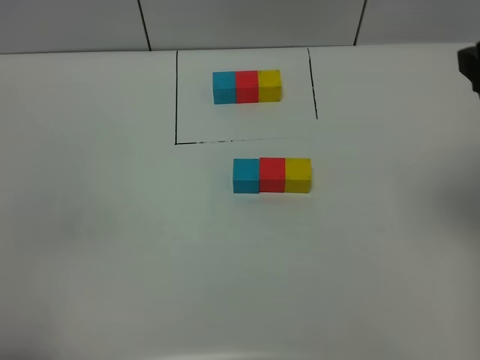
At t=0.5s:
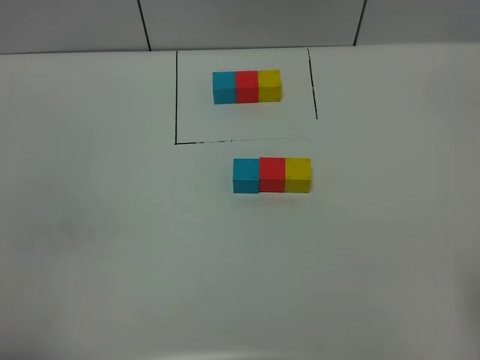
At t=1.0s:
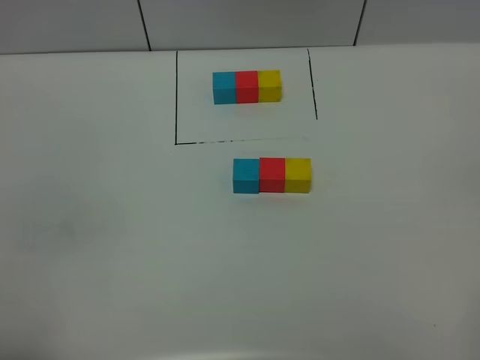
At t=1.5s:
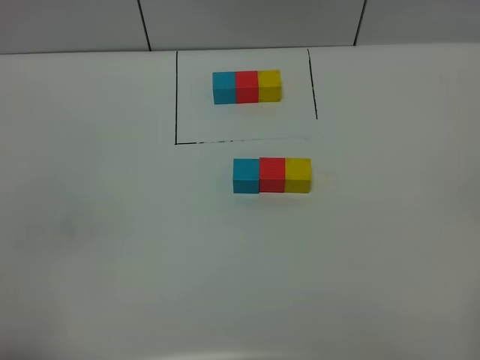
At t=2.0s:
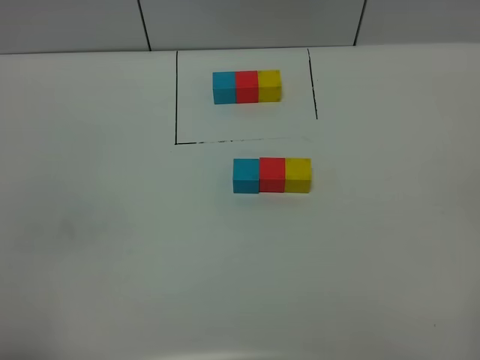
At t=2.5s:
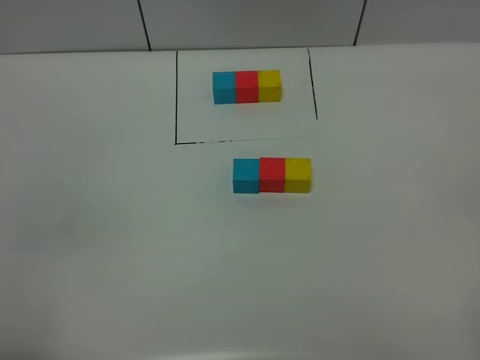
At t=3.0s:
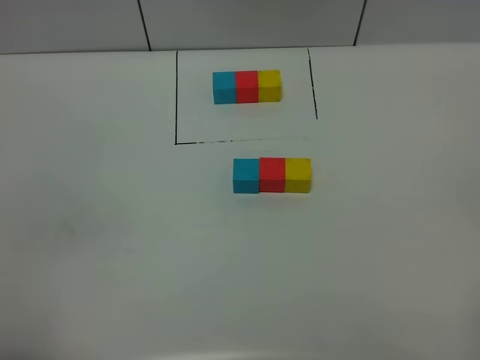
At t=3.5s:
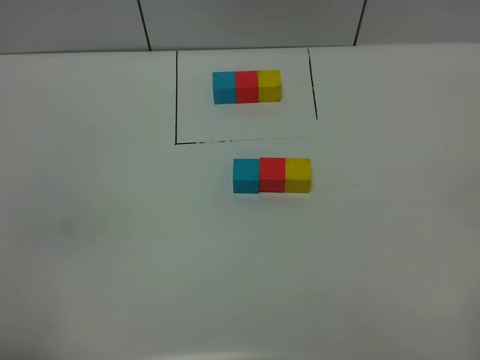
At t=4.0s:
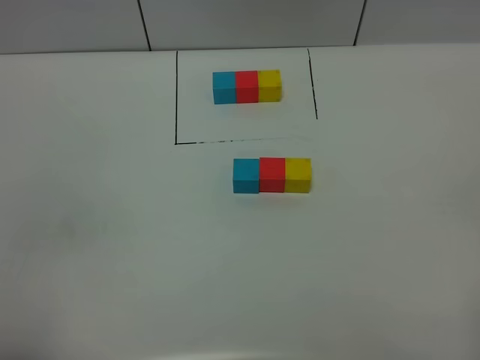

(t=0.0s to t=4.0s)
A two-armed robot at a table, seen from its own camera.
Task of the whole recording: According to the building block template in front, assemble the scattered blocks together.
t=0.0s - t=2.0s: The right gripper heads backward and downward, covering approximately 25 cm.
t=2.0s - t=4.0s: Both grippers stay put.

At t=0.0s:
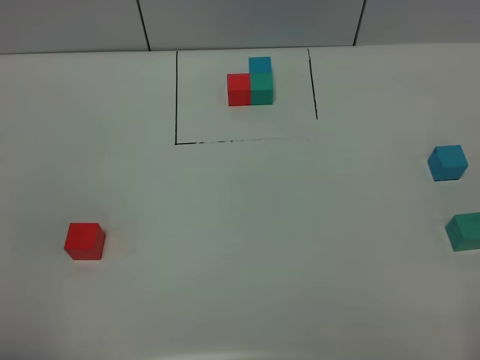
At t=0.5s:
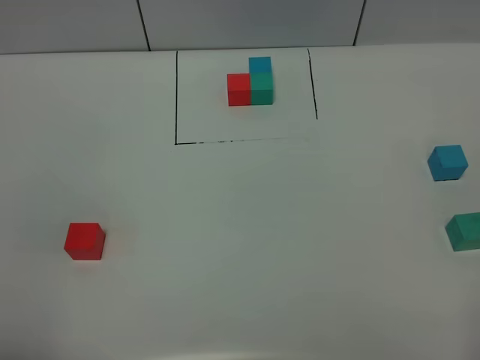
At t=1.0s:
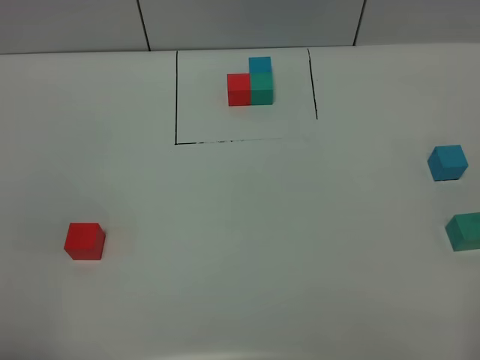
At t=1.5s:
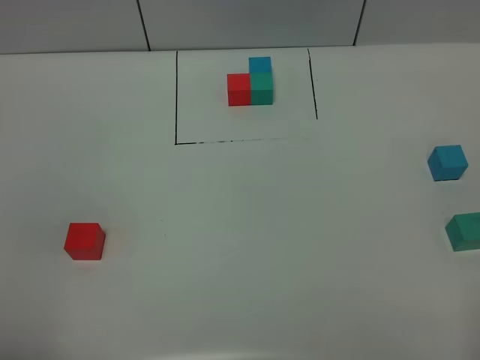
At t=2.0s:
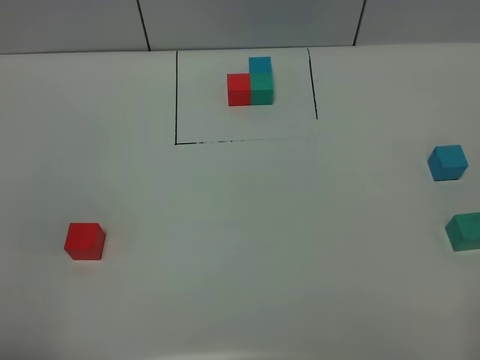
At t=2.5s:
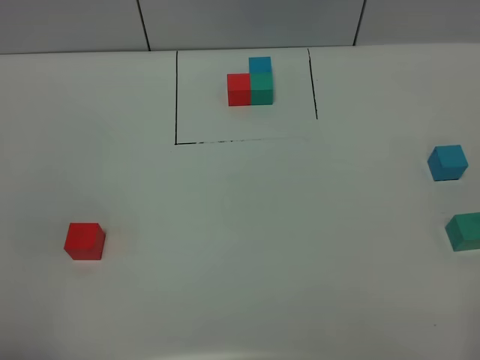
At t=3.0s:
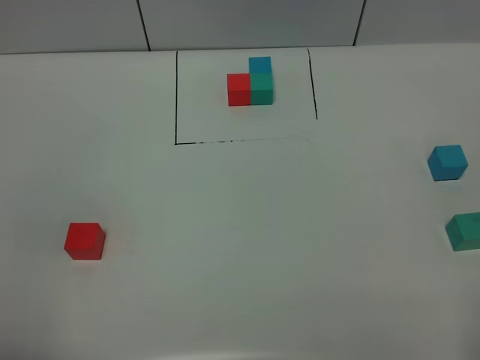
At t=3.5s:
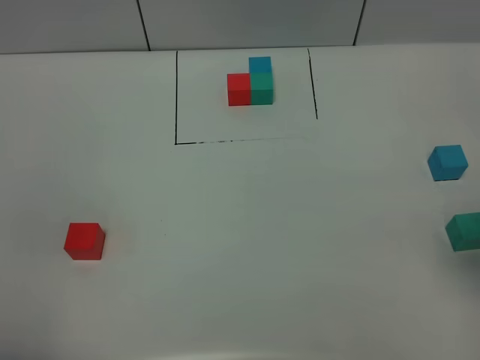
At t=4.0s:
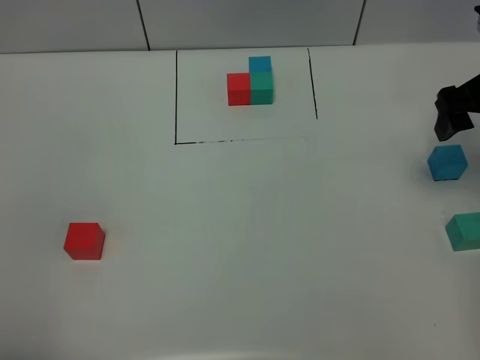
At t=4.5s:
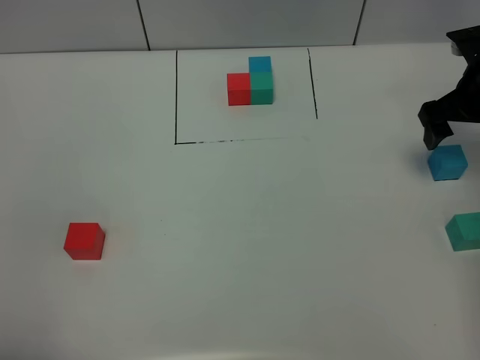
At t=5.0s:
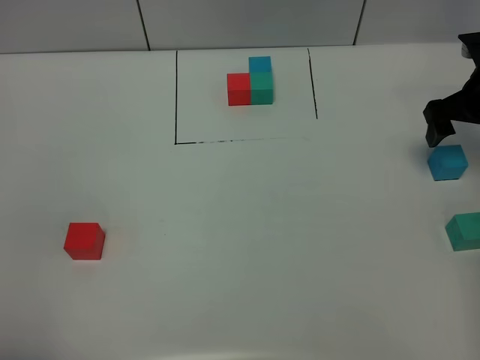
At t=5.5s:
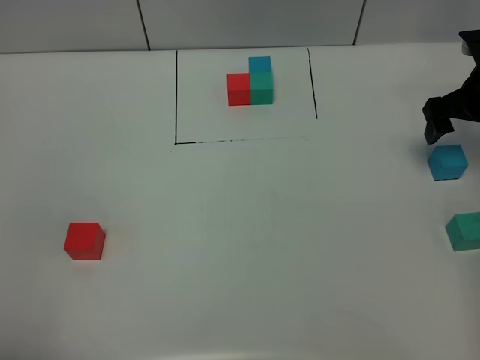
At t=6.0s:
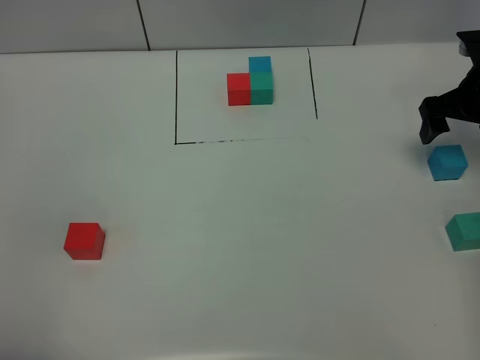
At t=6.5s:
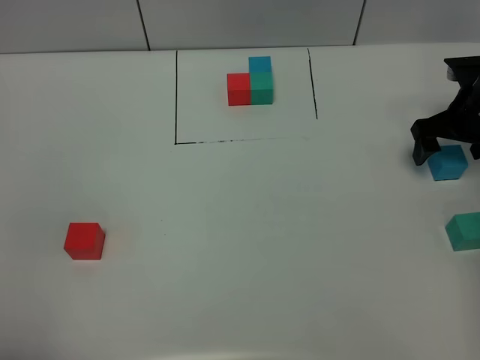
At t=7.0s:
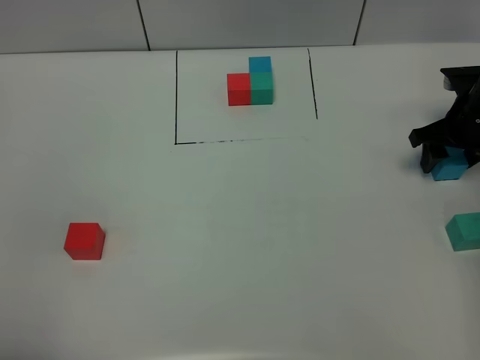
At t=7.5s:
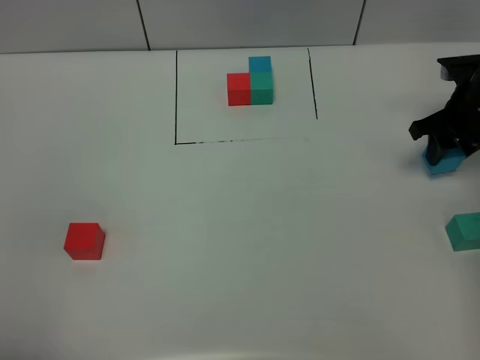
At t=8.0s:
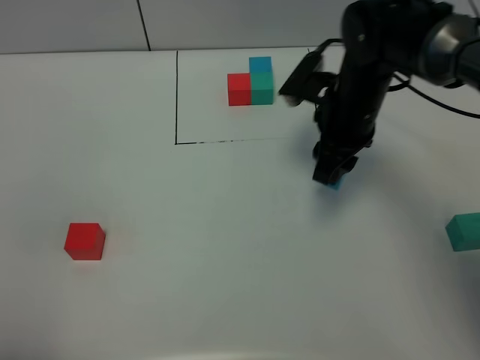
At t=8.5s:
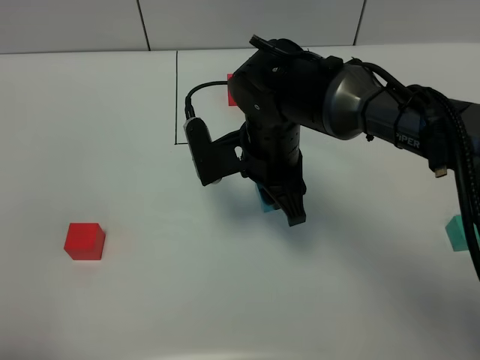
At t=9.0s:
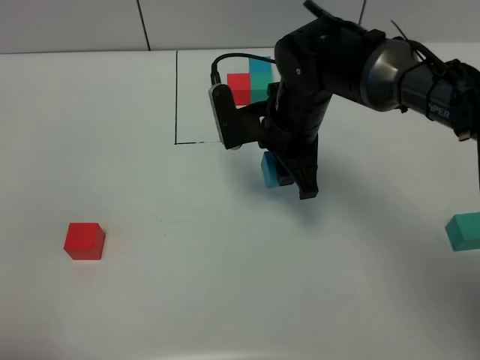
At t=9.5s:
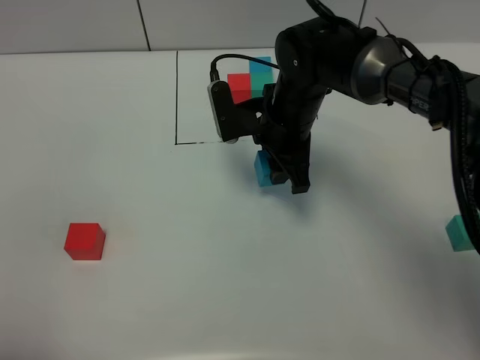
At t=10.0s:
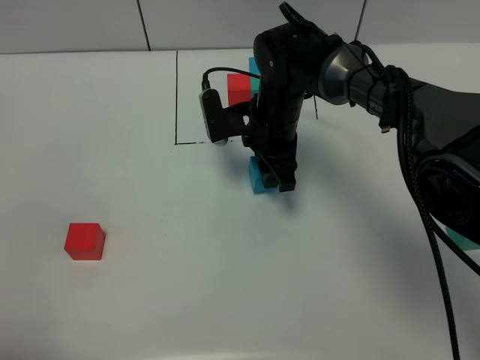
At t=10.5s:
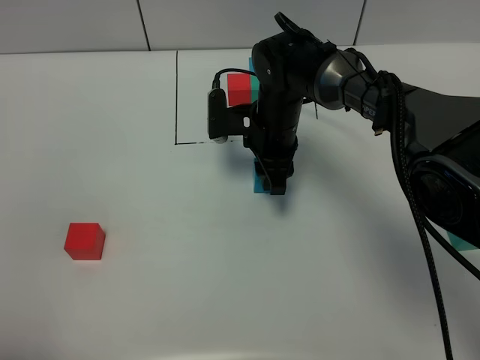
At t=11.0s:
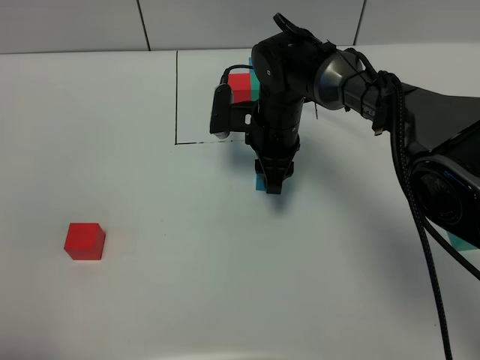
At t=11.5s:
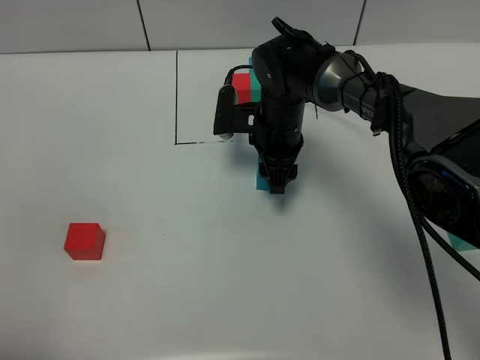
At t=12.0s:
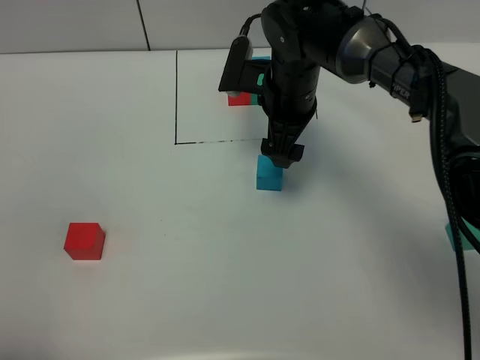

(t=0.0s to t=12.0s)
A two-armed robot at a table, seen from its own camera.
Task of the whole recording: According to the building block template in front, assemble the scattered blocks together.
Step, t=0.0s - t=10.5s: Put the blue build block in the center of the table.
t=0.0s - t=2.0s: The two grippers keep their place.
t=2.0s - t=4.0s: The right gripper shifts roughly 35 cm forward.
t=4.0s - t=6.0s: The right gripper goes approximately 10 cm downward and forward.
t=6.0s - t=8.0s: The right gripper heads to the left, covering some 20 cm, and closes.
t=8.0s - t=10.0s: The right gripper shifts about 10 cm to the left and downward.
t=10.0s - t=12.0s: The right gripper heads upward, covering approximately 5 cm, and opens its fingers.

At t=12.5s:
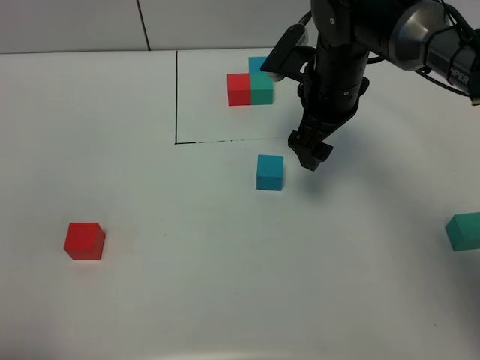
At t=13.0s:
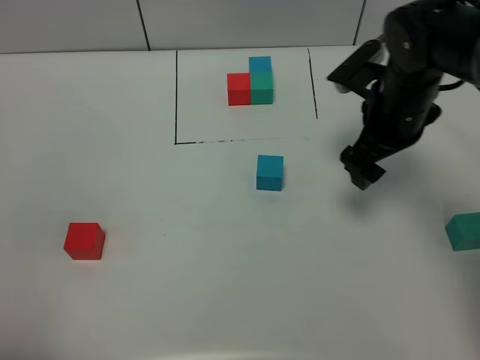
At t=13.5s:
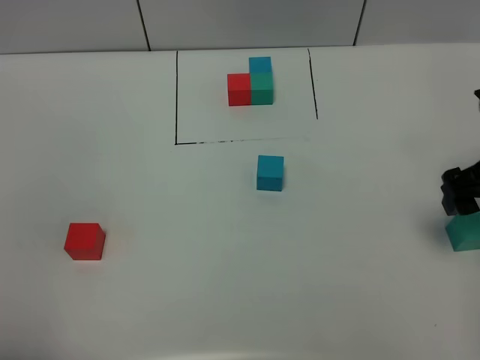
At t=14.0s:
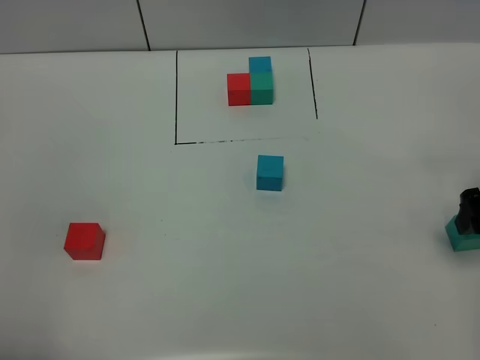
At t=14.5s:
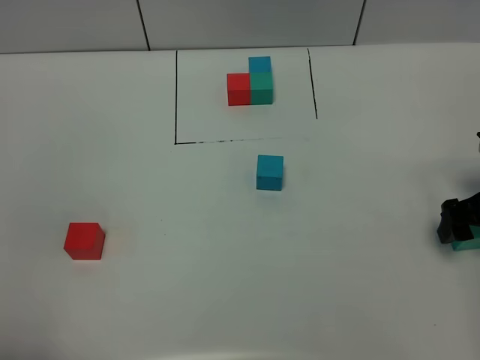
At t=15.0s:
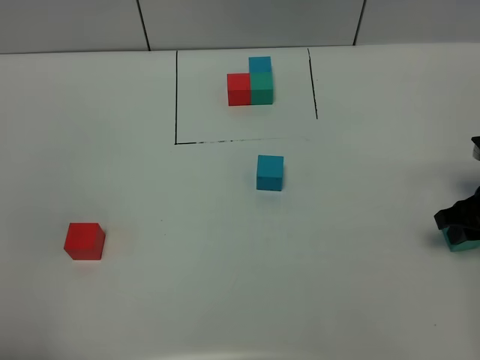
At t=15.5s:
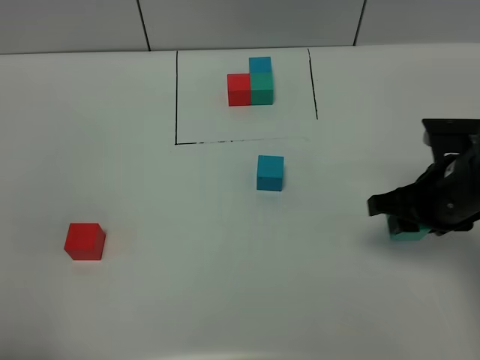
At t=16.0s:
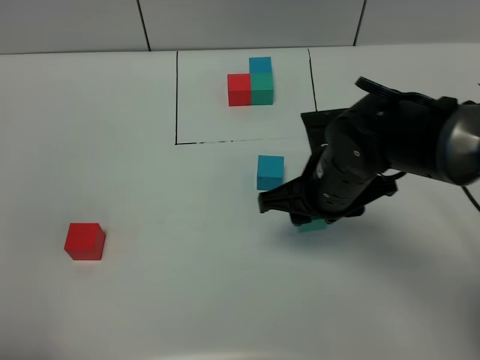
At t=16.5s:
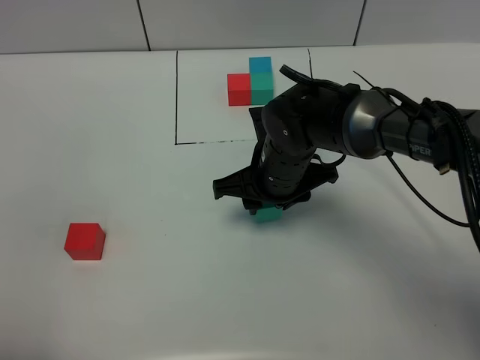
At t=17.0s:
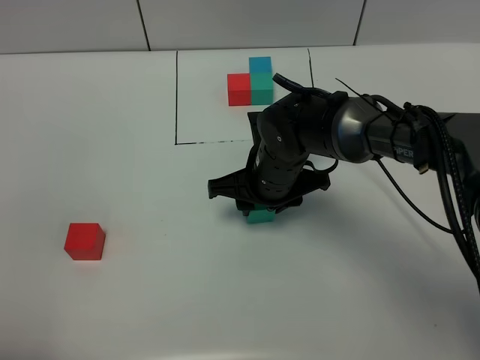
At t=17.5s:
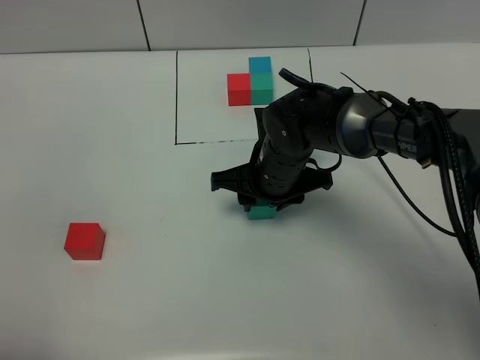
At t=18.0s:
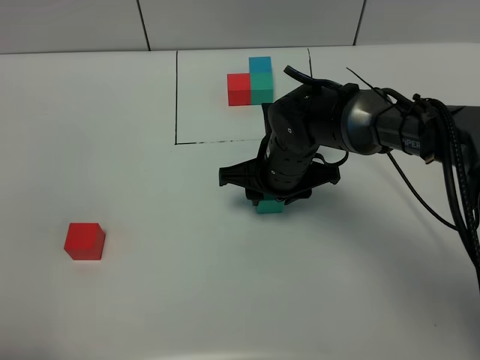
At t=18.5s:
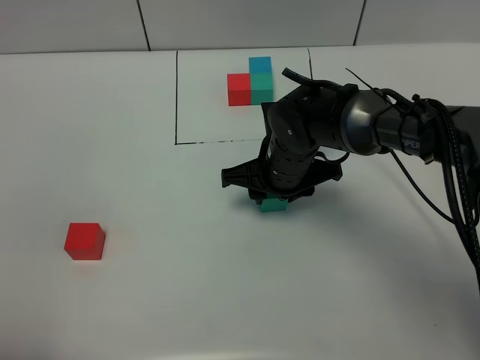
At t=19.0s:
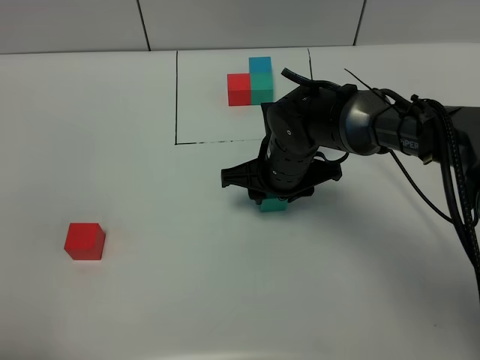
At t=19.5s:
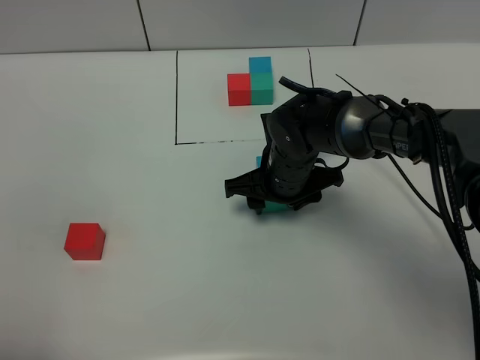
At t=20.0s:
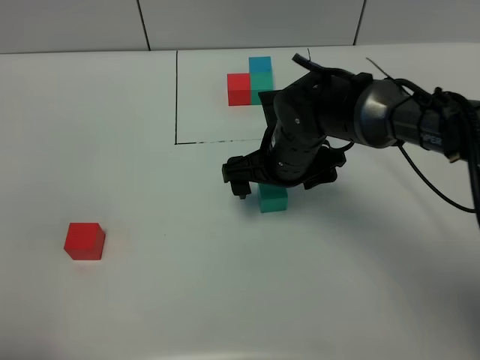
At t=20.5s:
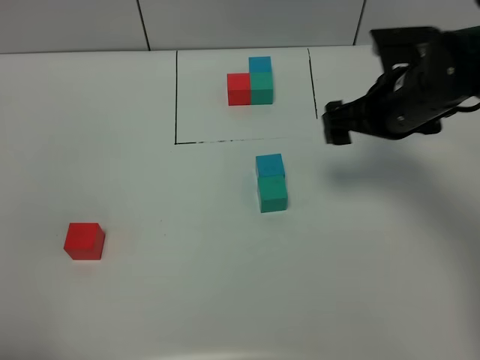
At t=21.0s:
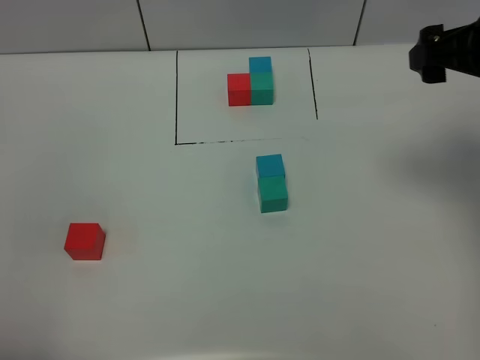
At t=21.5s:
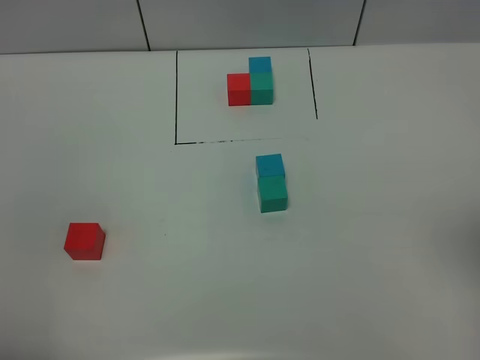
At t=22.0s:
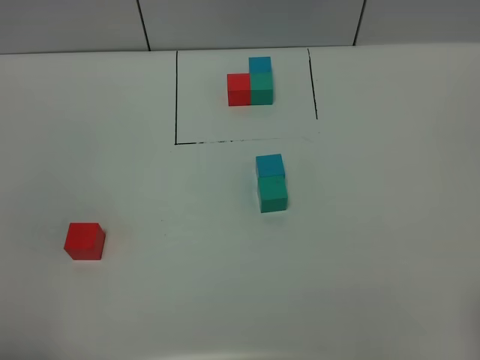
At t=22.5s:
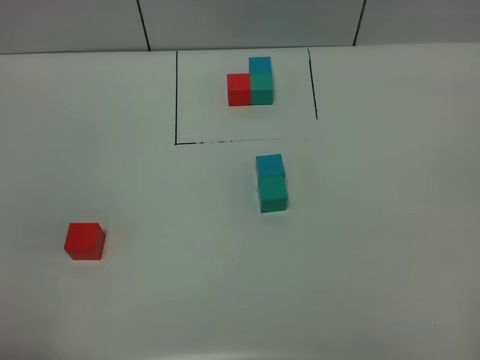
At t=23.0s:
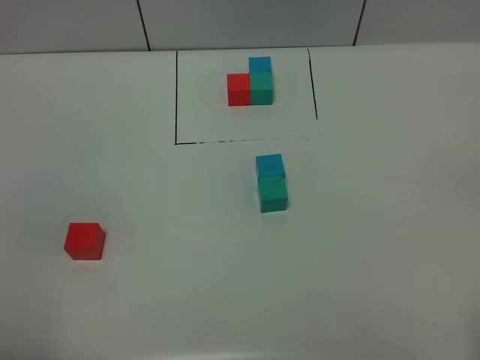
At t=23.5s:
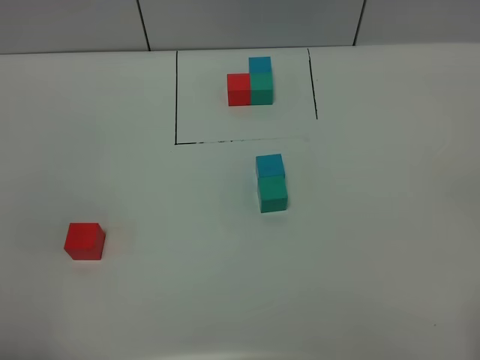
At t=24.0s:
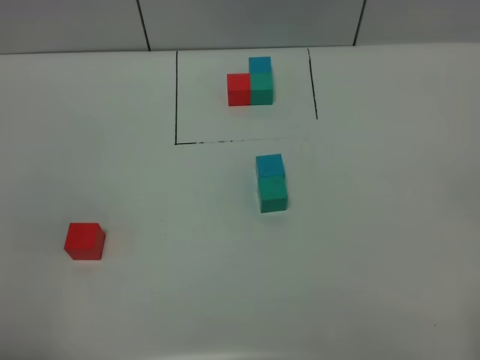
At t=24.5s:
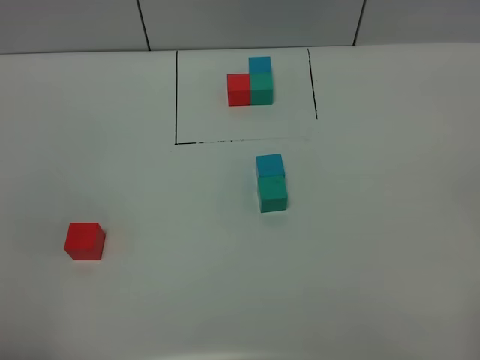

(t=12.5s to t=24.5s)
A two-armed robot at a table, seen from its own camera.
Task of the whole recording: According to the building block template in front, assemble the scattered blocks together.
Step, t=12.5s - t=20.0s: Put the green build block on the behind of the blue build block.
t=12.5s - t=14.5s: The right gripper is displaced to the right and backward by approximately 25 cm.
t=14.5s - t=16.5s: The right gripper heads to the left, covering about 30 cm, and closes up.
t=16.5s - t=18.5s: The grippers make only small movements.
t=18.5s - t=20.5s: The right gripper goes roughly 15 cm to the right and upward, and opens up.
t=20.5s - t=22.5s: The right gripper shifts about 35 cm backward.
